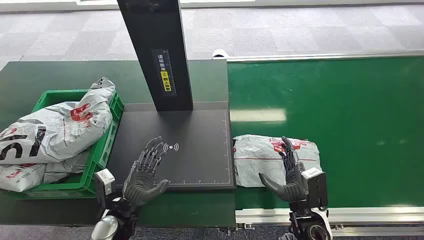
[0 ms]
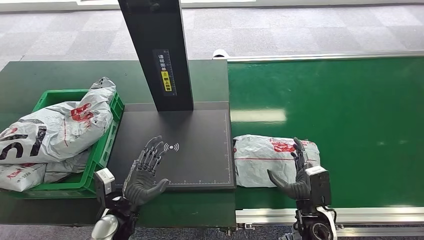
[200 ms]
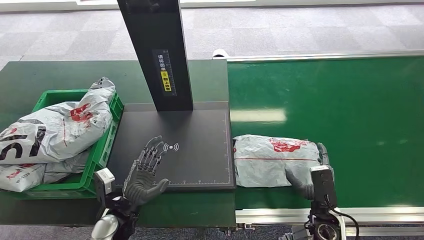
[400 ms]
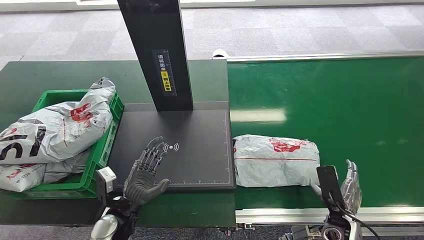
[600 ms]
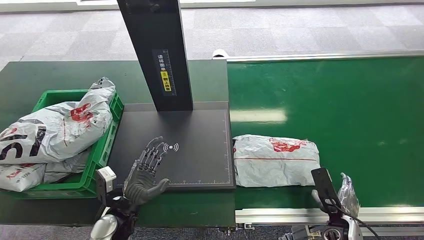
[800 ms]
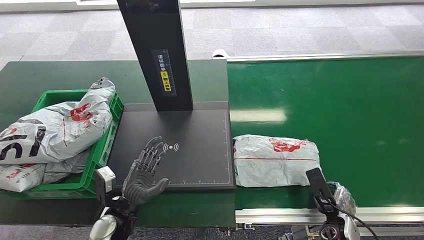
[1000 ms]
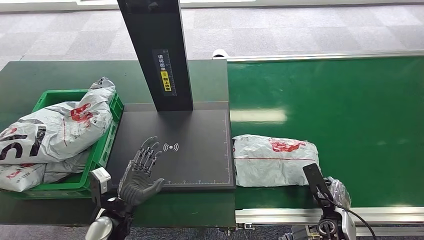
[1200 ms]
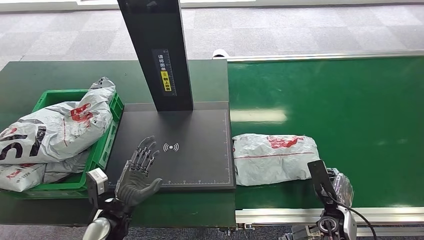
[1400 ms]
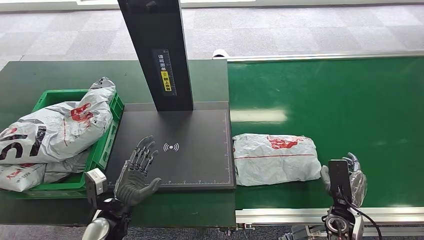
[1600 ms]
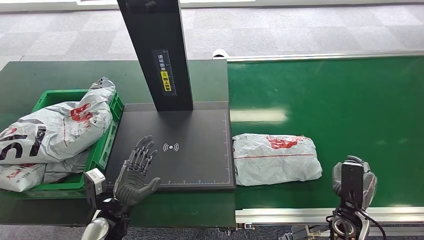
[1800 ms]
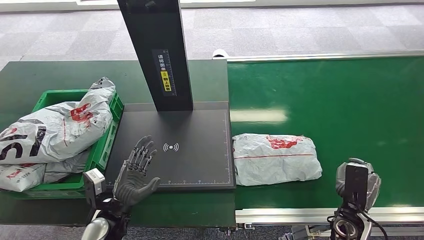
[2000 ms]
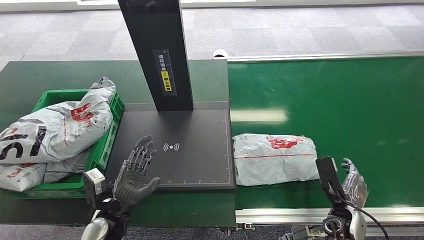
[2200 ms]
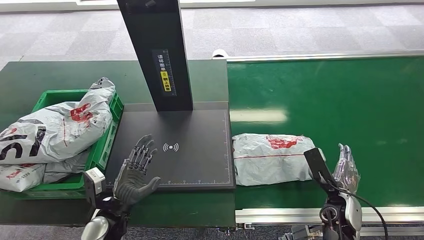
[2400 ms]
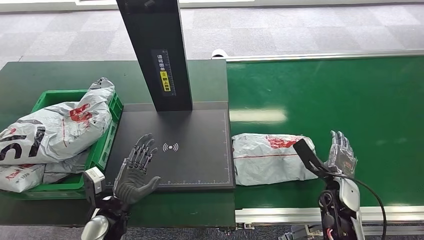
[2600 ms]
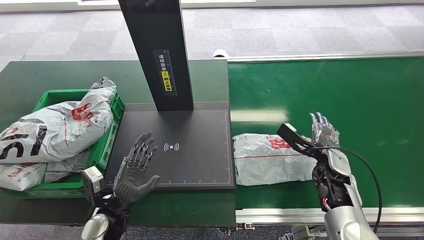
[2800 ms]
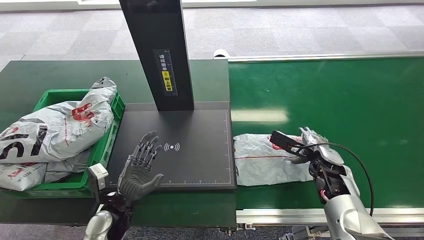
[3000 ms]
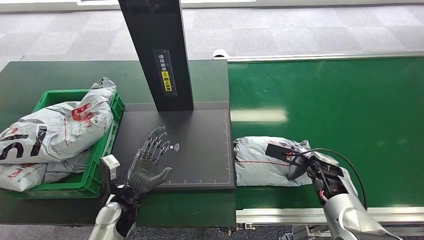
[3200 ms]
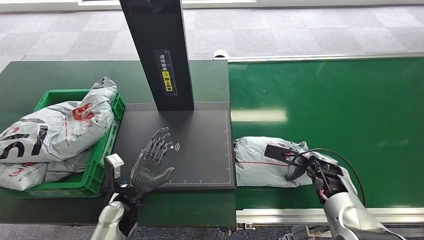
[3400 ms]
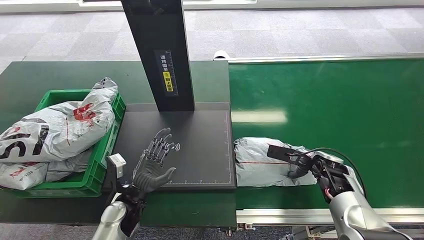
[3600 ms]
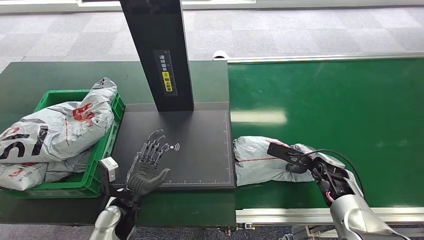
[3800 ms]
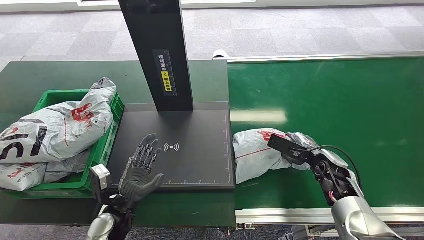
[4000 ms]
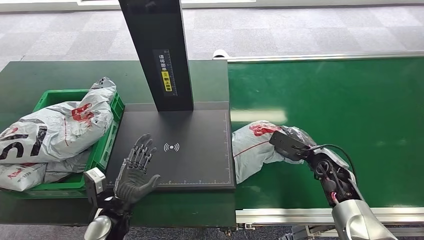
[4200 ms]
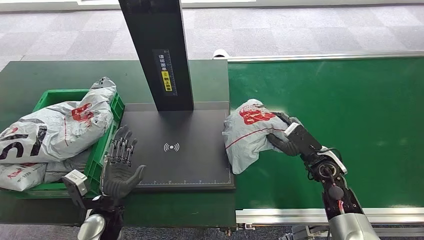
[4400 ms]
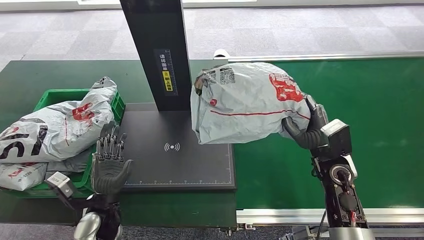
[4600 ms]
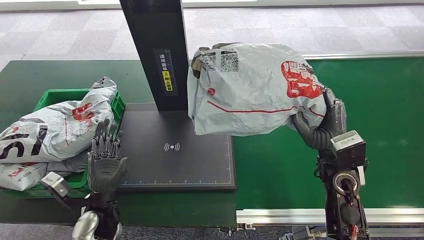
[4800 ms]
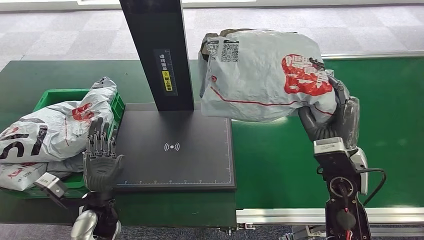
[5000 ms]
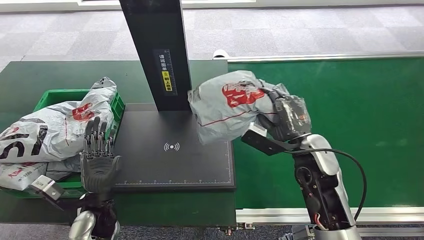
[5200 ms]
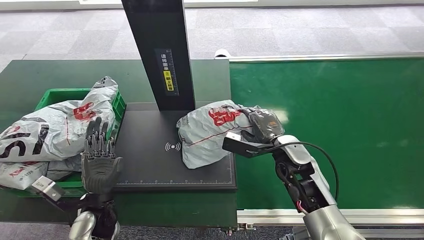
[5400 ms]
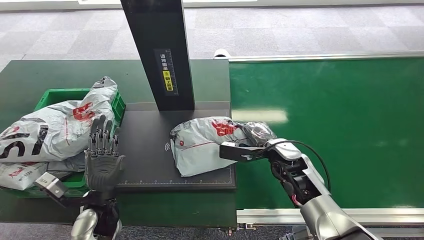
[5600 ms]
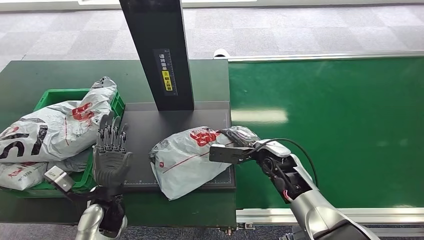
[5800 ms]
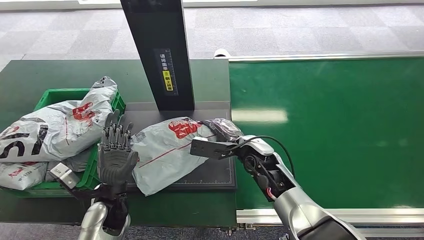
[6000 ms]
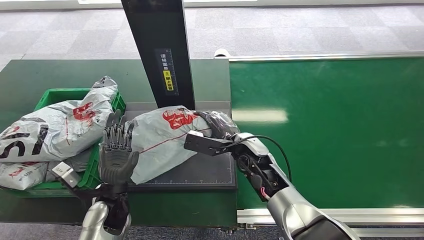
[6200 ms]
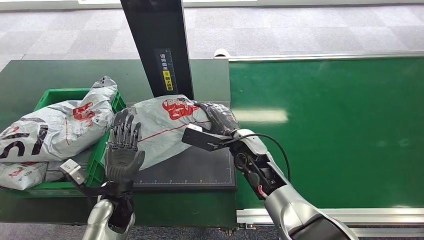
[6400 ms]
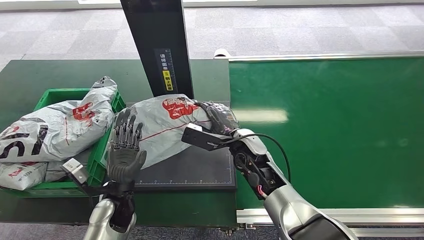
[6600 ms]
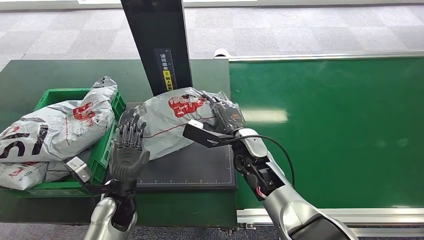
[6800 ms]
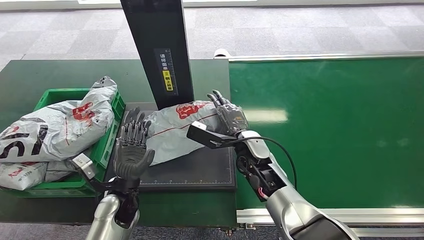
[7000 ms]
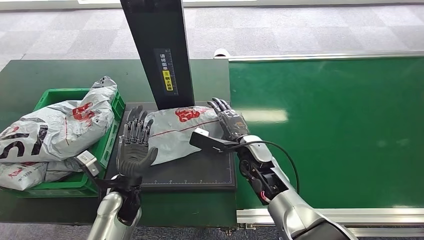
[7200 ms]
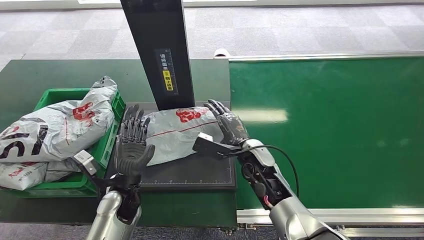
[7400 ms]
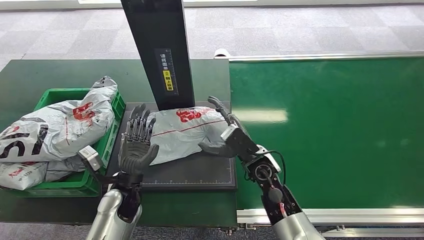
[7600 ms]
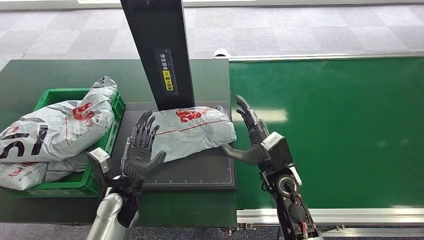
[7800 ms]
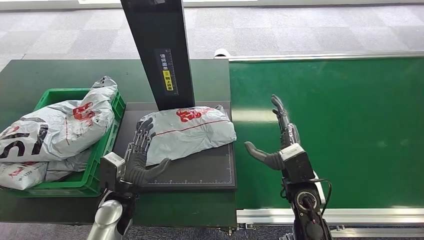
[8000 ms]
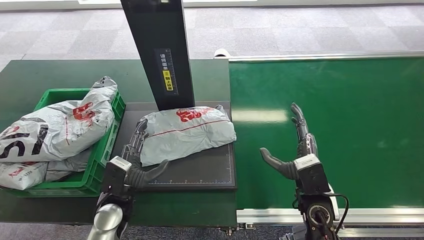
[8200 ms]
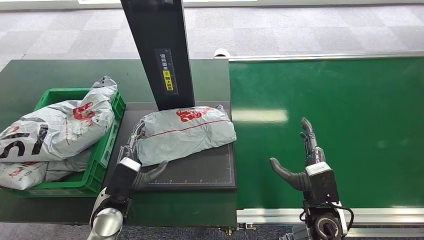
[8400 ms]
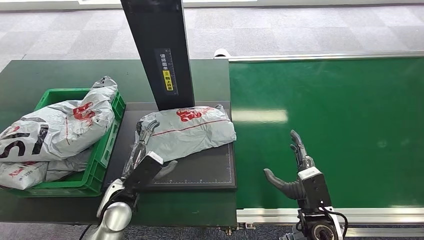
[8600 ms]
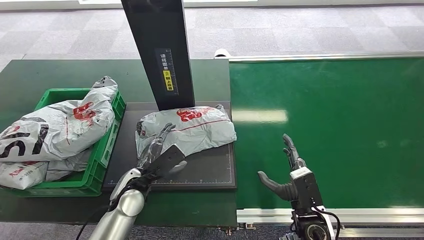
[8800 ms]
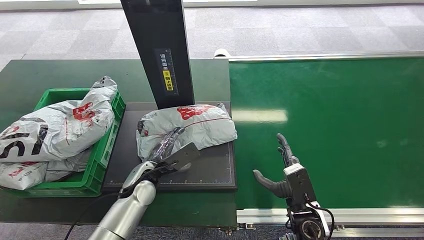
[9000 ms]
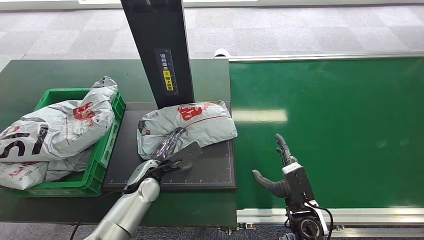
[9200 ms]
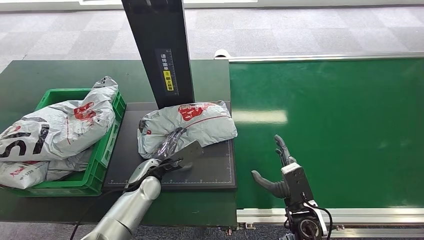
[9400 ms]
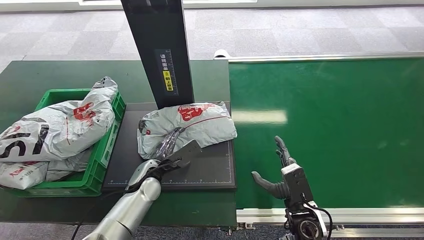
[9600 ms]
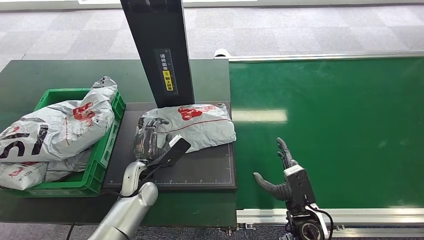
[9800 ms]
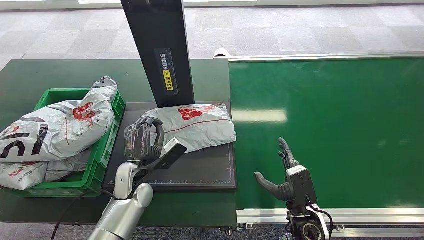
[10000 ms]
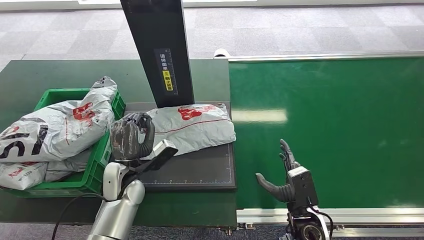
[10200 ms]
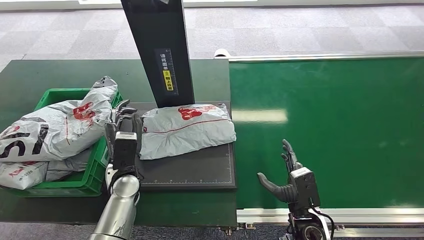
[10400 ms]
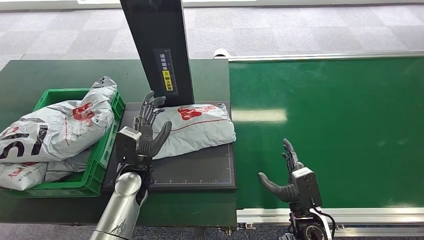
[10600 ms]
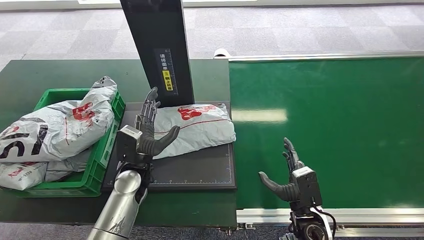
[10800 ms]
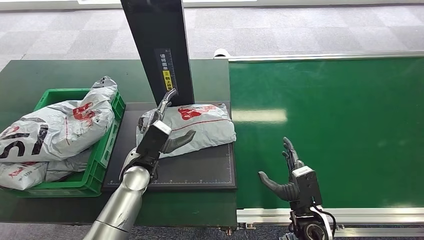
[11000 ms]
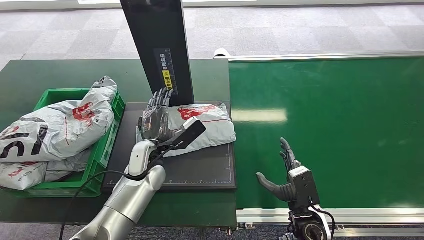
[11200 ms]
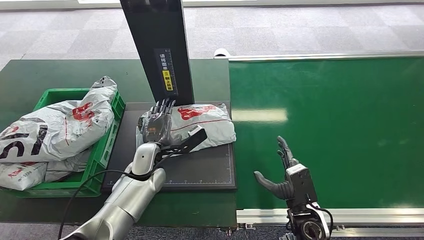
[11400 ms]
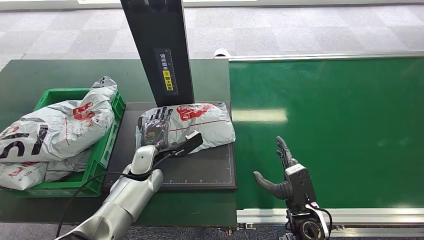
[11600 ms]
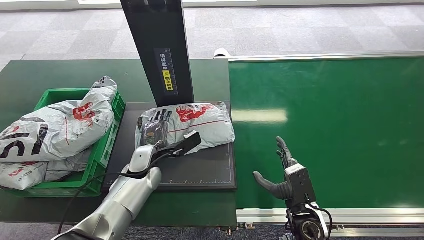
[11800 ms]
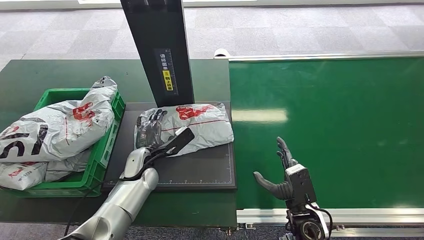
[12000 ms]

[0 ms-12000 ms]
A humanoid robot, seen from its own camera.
Step, 0 ms to 5000 ms: Pick up the package from the conveyor belt.
Step, 5400 ms to 8200 ms: Place the package onto the inbound machine.
1600 ms to 3000 ms: The right hand is displaced forward and upward by approximately 15 cm.
7600 ms to 9000 ms: The right hand heads backward, to the right and downward, covering some 15 cm.

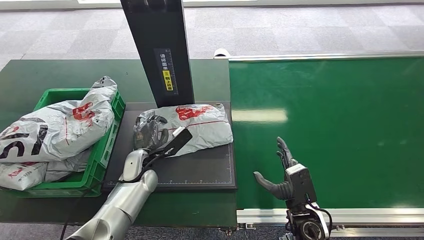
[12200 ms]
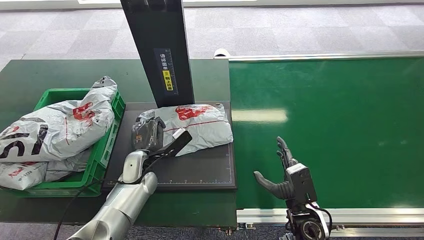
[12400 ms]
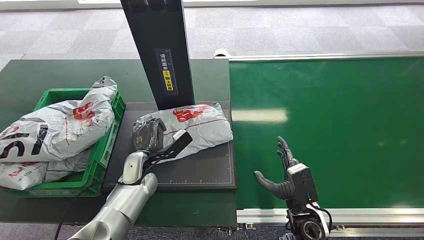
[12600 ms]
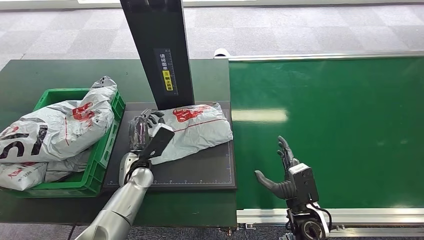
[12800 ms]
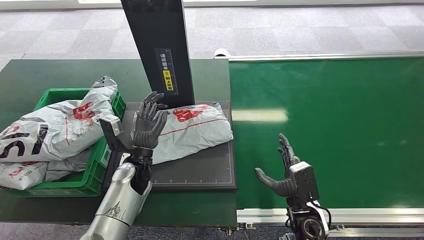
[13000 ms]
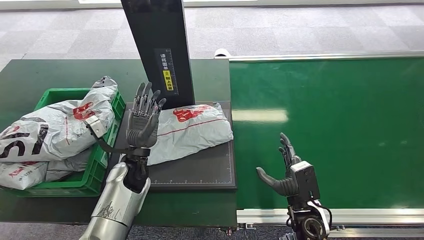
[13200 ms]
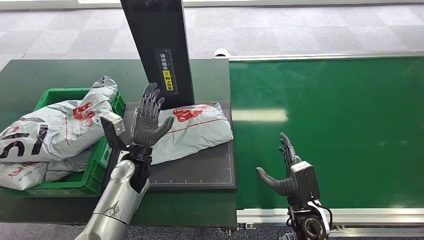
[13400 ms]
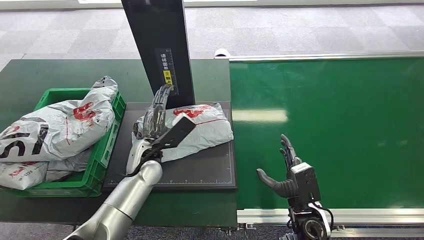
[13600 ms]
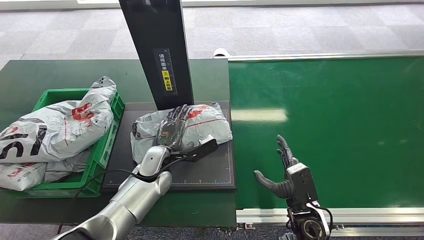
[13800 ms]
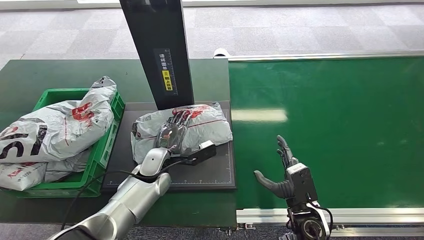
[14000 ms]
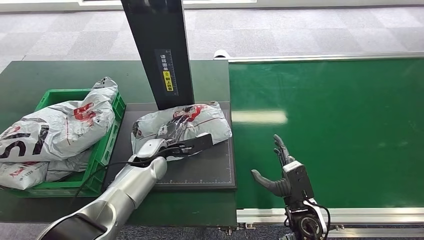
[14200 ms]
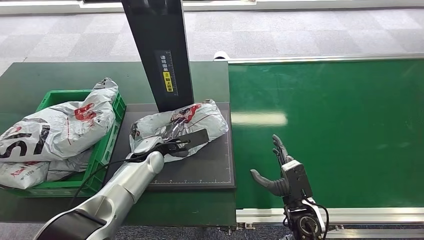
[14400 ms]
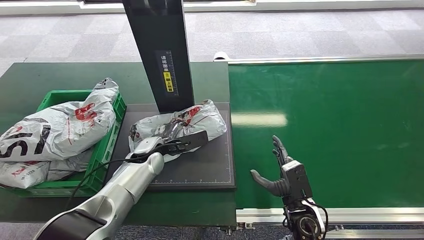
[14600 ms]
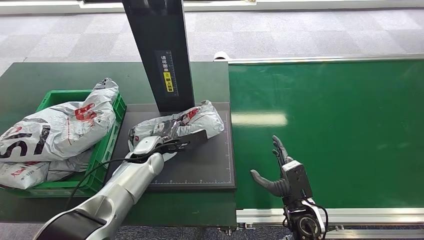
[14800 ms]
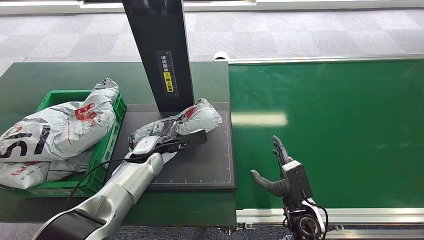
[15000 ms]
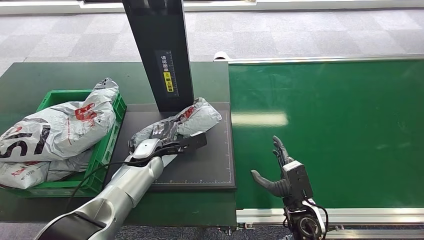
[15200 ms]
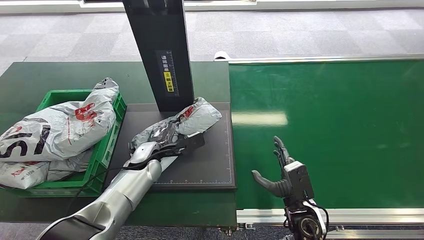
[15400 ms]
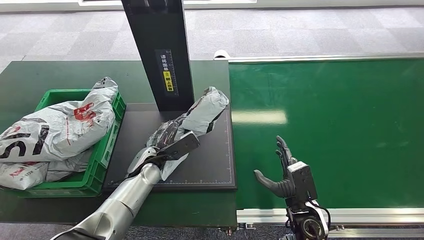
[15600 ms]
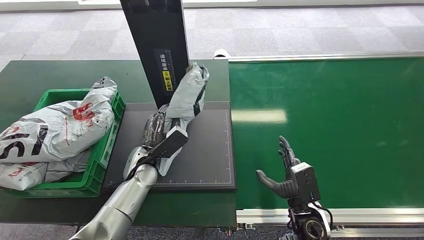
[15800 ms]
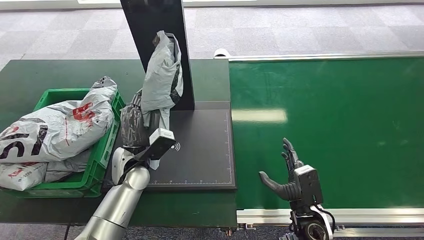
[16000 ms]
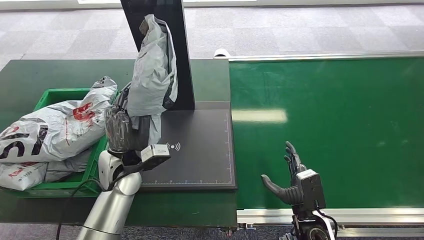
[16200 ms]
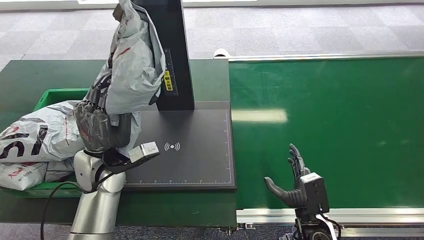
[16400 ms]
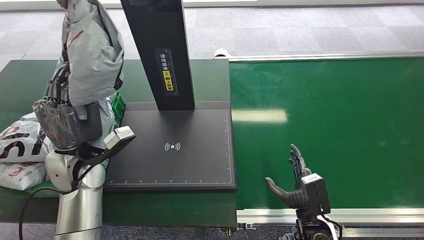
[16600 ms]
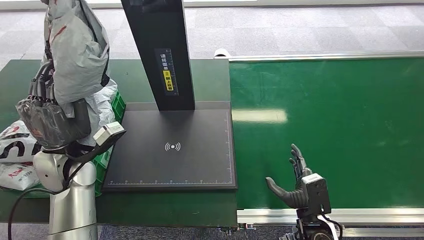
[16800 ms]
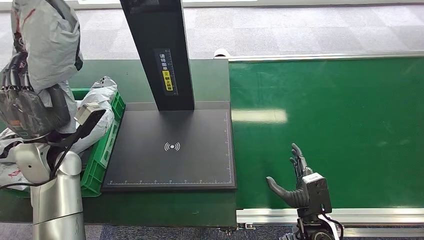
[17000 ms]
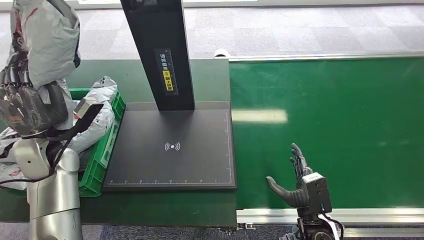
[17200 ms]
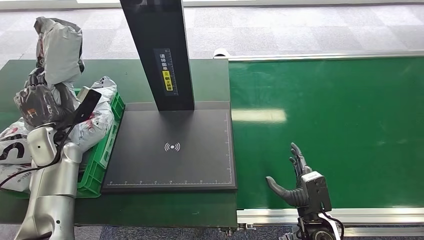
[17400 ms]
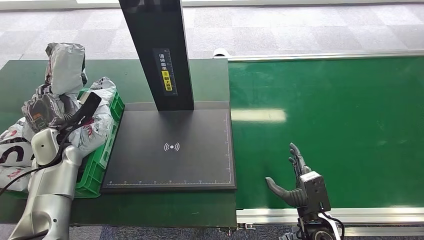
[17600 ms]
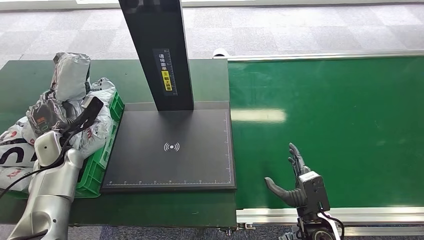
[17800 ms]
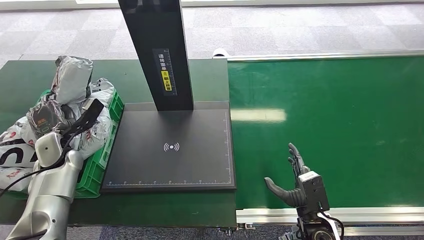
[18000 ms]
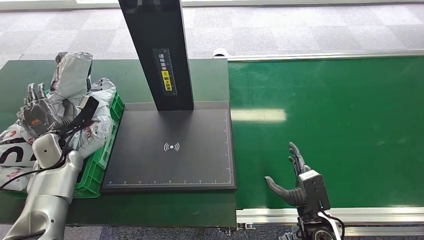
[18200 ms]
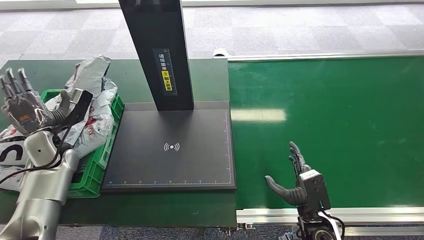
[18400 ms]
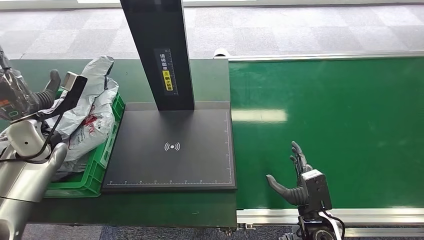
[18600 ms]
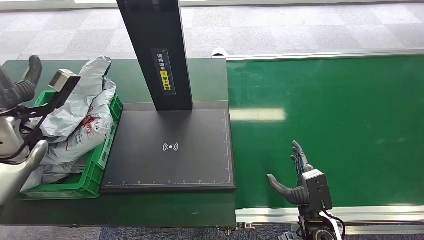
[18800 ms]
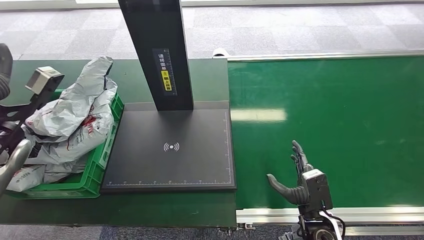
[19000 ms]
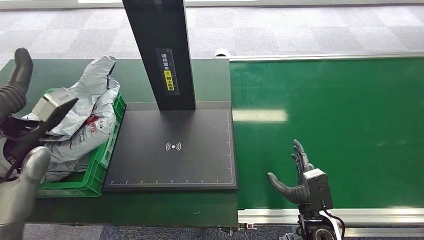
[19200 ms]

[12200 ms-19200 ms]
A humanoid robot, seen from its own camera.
Step, 12200 ms to 16200 ms: Pick up the package from the inbound machine.
Step, 16600 ms to 19200 ms: Place the package into the parcel locker.
12200 ms to 13600 ms: The left hand moves some 5 cm.
17800 ms to 19200 ms: The left hand is displaced upward by some 15 cm.
